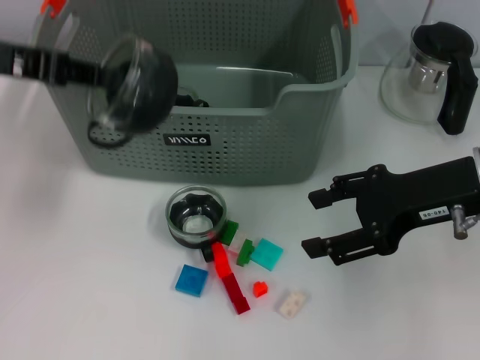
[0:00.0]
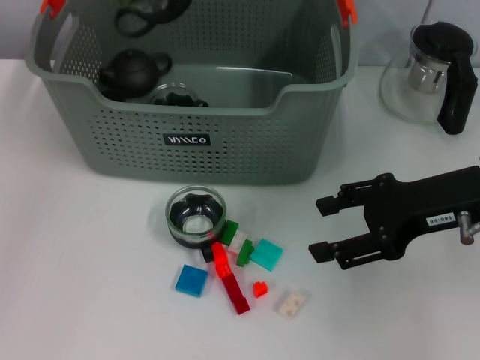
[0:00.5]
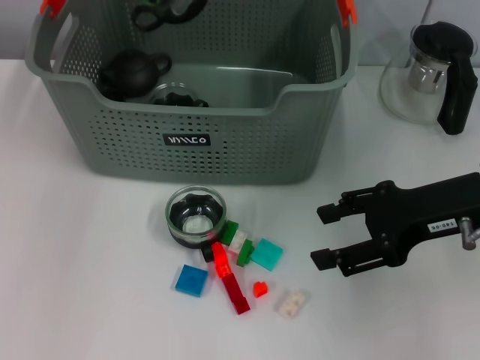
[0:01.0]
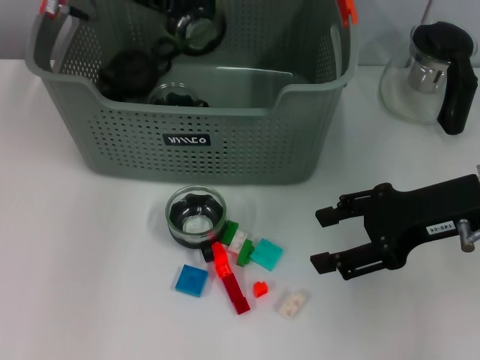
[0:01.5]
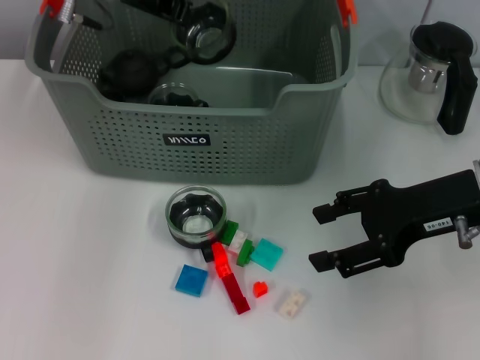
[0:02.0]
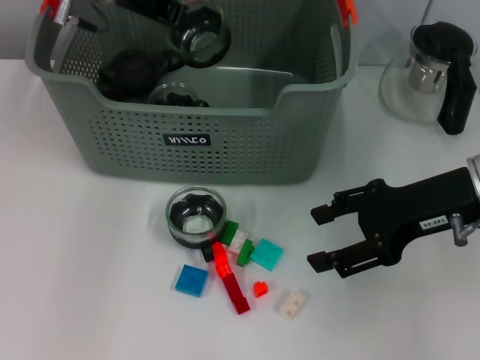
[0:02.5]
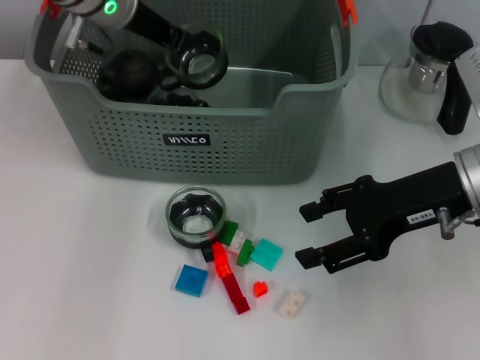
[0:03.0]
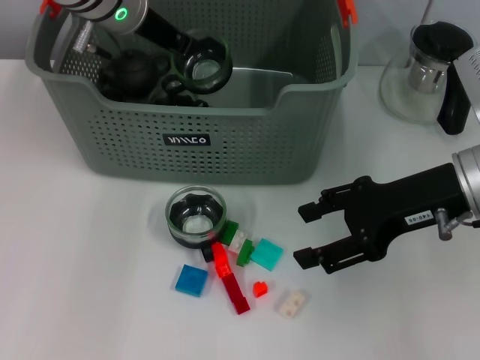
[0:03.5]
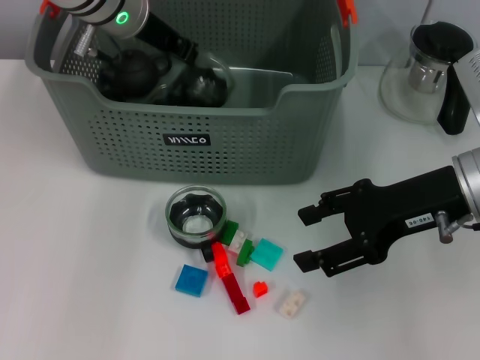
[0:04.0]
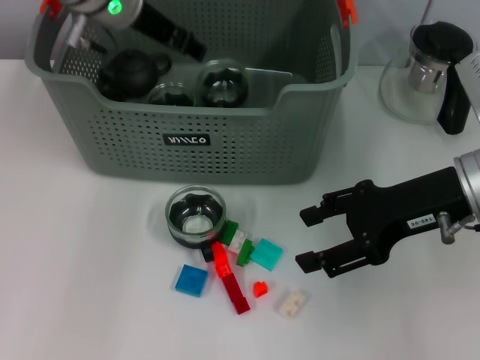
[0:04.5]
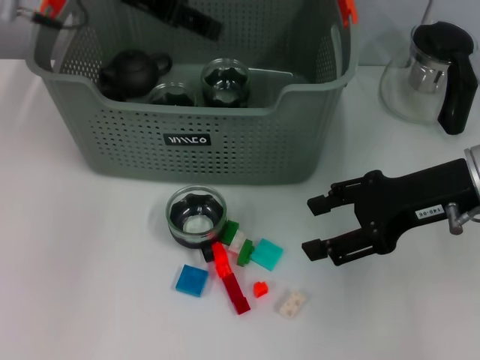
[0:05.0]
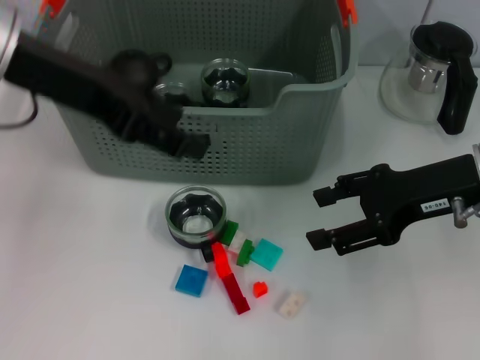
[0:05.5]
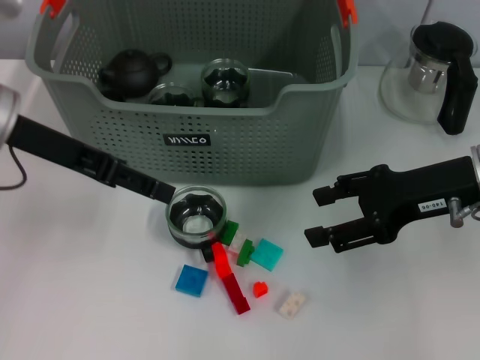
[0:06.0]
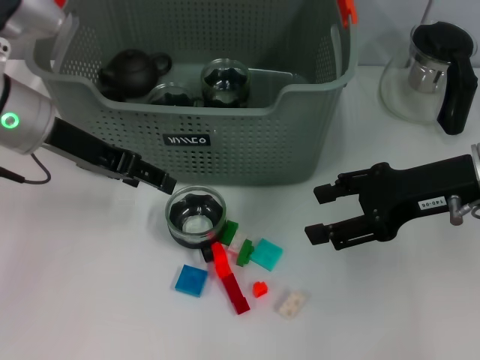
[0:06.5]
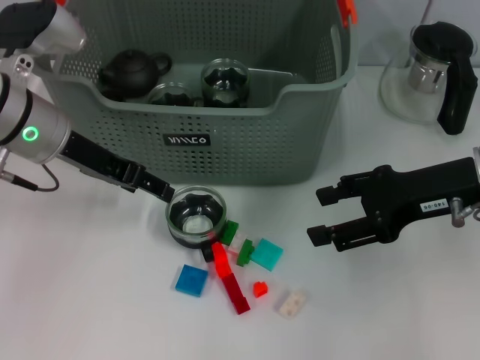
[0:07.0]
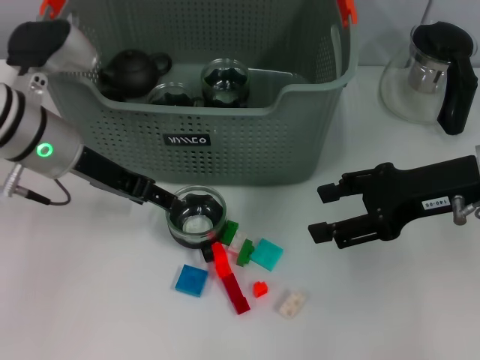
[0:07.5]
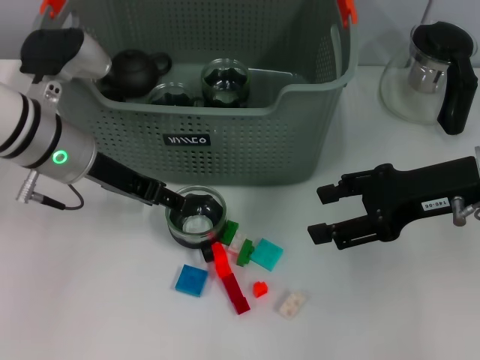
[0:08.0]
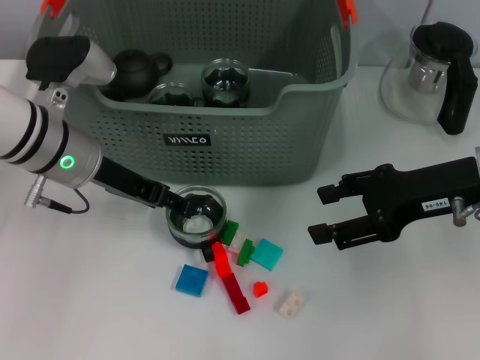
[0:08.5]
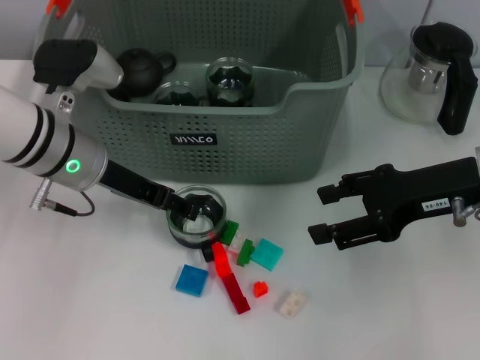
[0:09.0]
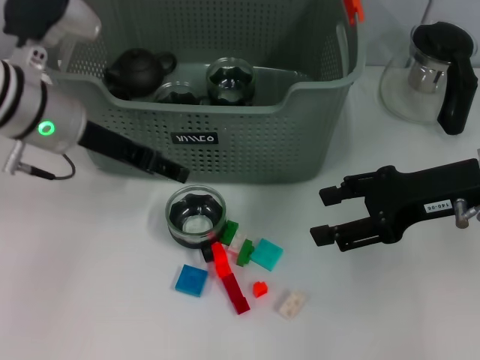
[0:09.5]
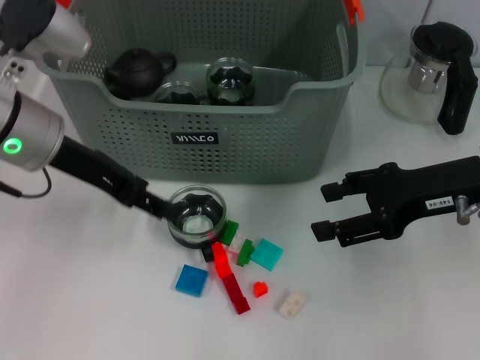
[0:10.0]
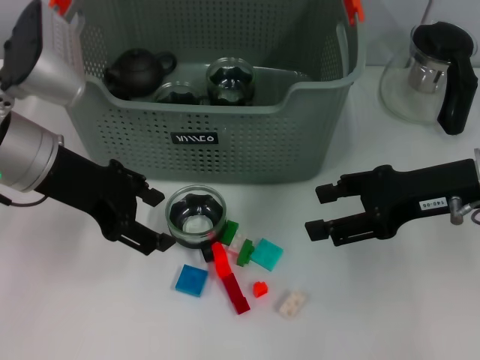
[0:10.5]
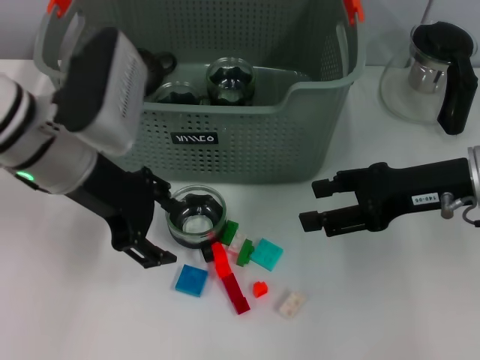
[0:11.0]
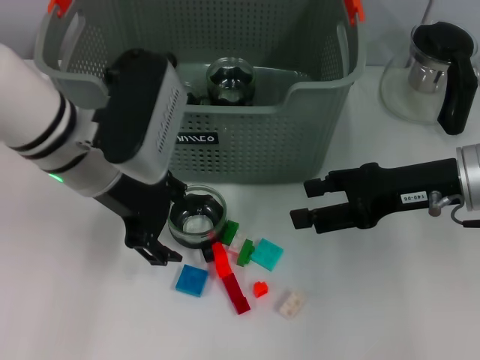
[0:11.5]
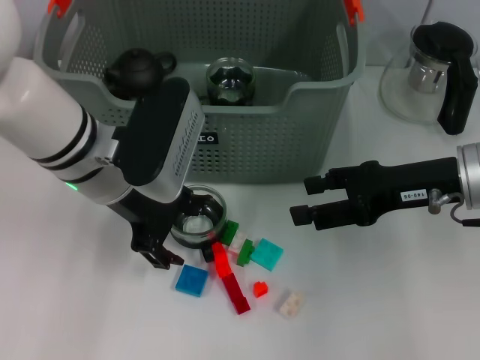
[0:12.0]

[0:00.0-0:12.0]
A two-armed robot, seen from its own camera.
Task of the whole recording: pick up the teacup on the table and place it into the storage bin, pick up the block on the table and place it into the storage bin.
Step, 0:00.0 to 0:04.0: Place the cup in the storage box with left gripper.
0:00.0 to 0:02.0: The left gripper goes approximately 20 cm forward and to the right.
0:02.0 to 0:04.0: There are only small adjustments of the grippers.
0:04.0 to 0:06.0: The left gripper is displaced backward and to the left by roughly 15 cm, and opens its fingers.
0:06.0 to 0:08.0: The left gripper heads downward, covering some 10 cm.
0:08.0 to 0:10.0: The left gripper moves approximately 5 cm.
0:10.0 to 0:12.0: The left gripper moves to the right, some 5 cm.

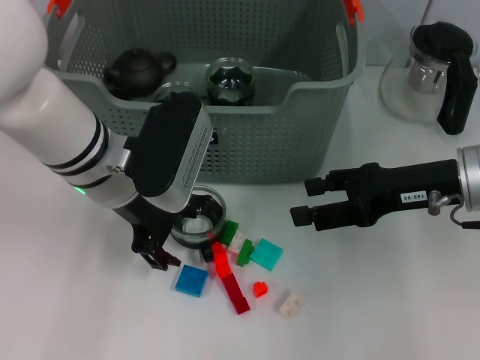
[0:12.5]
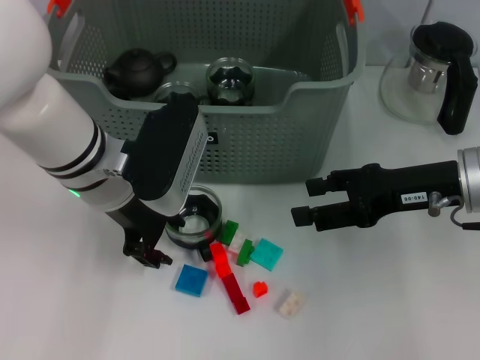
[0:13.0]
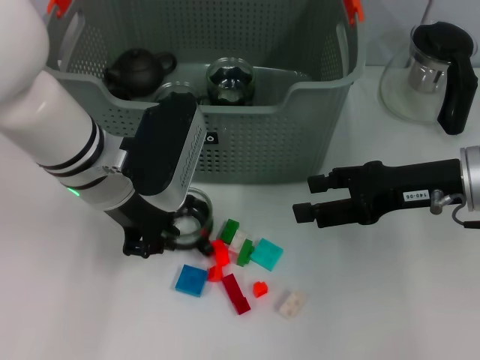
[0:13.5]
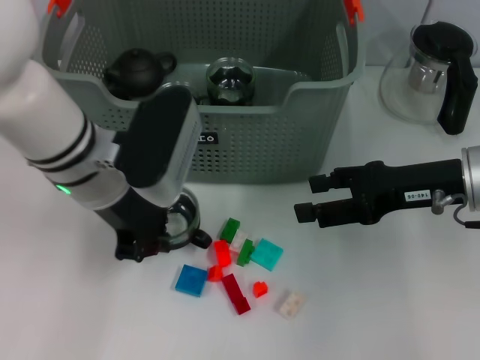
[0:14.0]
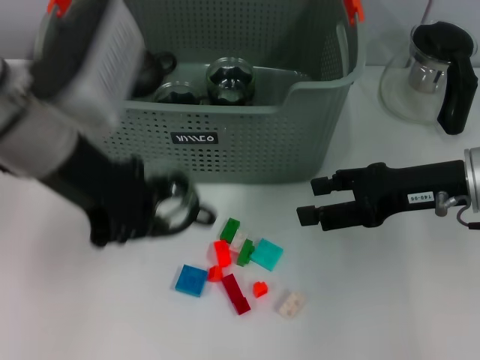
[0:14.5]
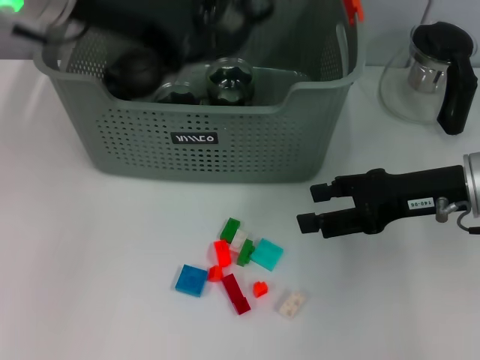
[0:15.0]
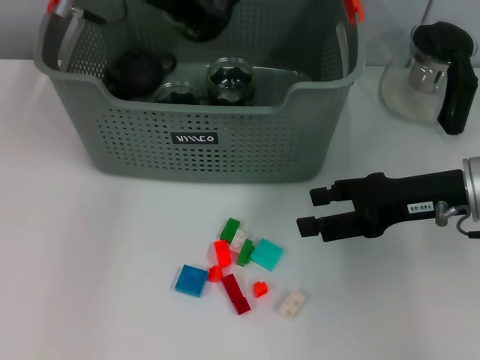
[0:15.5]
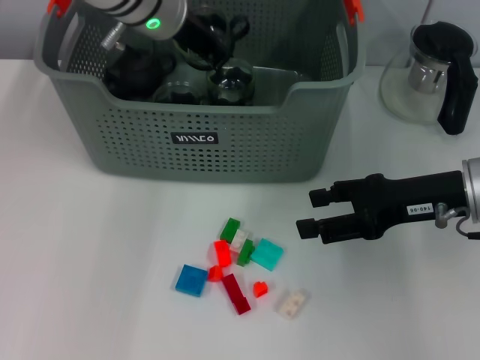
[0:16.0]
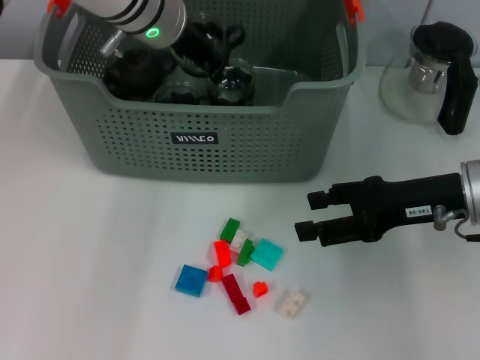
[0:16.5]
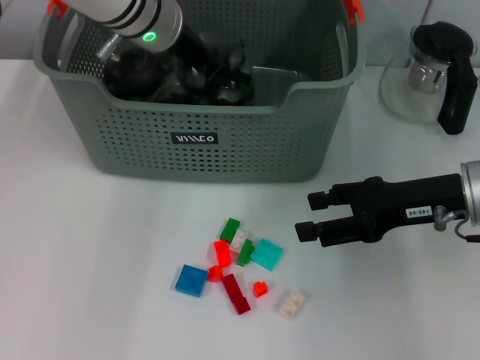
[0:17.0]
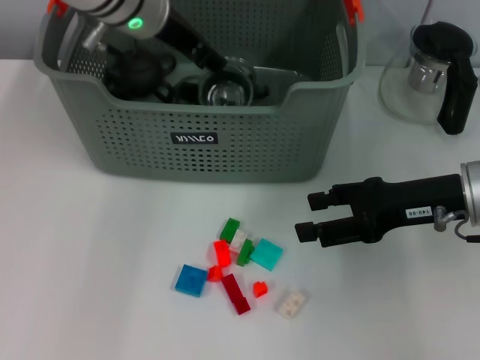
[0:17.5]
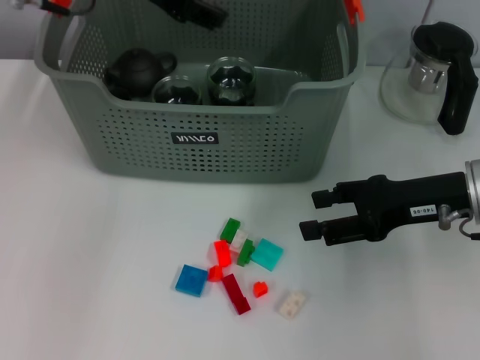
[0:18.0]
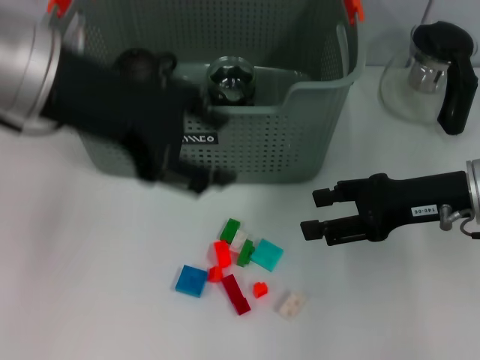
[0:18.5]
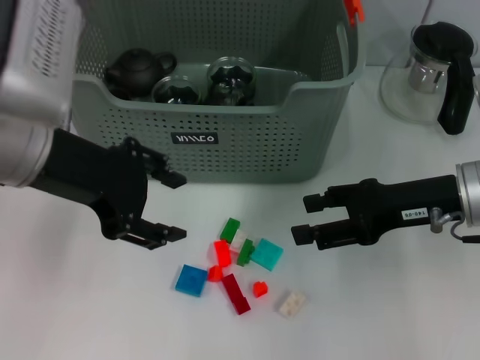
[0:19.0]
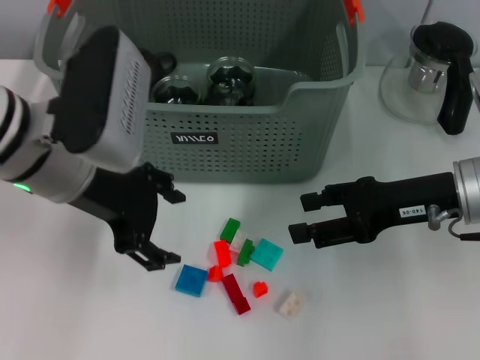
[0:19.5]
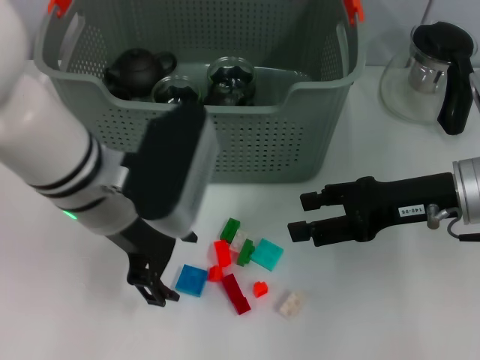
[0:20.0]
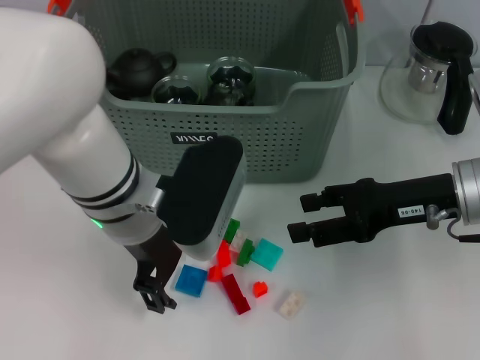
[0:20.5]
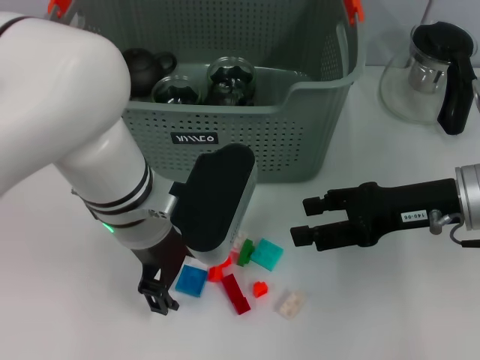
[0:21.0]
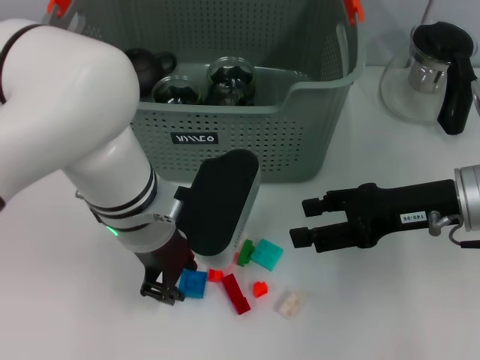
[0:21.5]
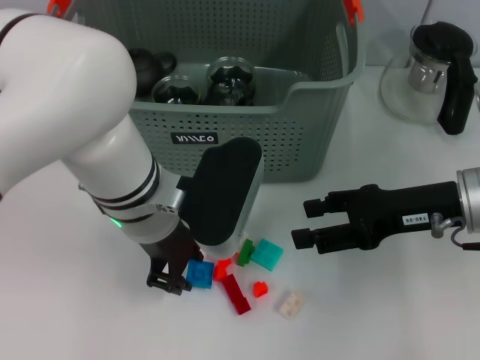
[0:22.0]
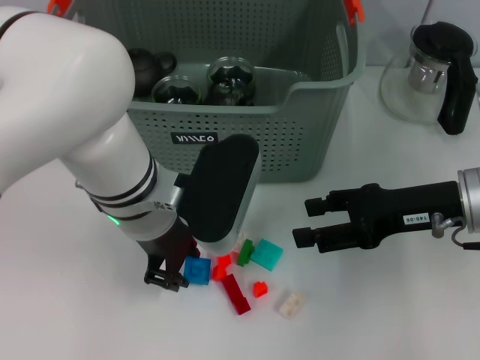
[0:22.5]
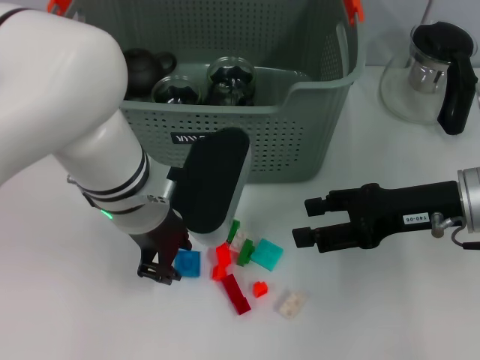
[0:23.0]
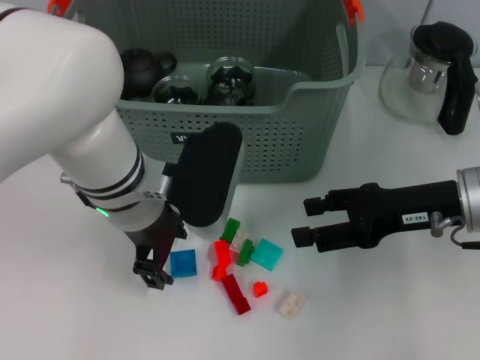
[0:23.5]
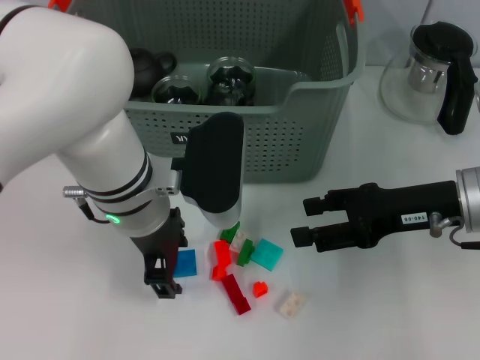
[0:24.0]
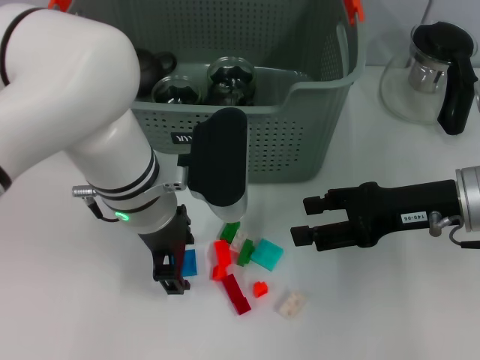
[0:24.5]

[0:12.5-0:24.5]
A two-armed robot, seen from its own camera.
Task of the whole recording: pick up the teacup on the table and place it into the storage bin, pick up the block on the table and place it into the storage bin.
Step, 0:14.0 to 0:17.5: Place the cup in the storage box with left gripper.
0:12.5 to 0:14.5: The left gripper heads upward, covering about 10 cm, and closes.
0:14.5 to 0:16.5: The left gripper shifts roughly 15 cm forward and to the right.
0:16.5 to 0:18.5: The left gripper travels backward, upward and to the left by about 20 cm, and opens.
0:18.5 to 0:20.5: The left gripper moves downward and to the right, some 15 cm.
0:20.5 to 0:22.5: The left gripper closes.
0:22.5 to 0:24.5: There are only small adjustments of the grippers.

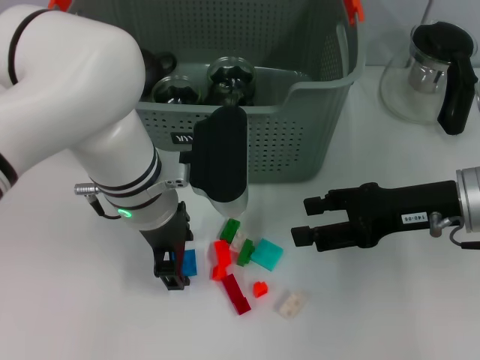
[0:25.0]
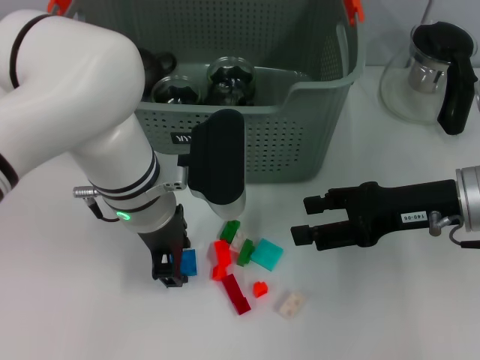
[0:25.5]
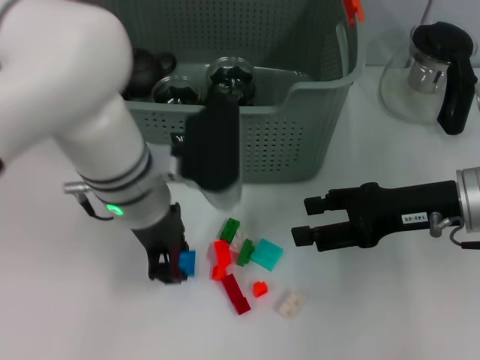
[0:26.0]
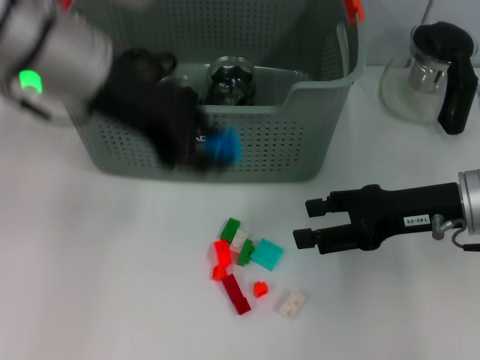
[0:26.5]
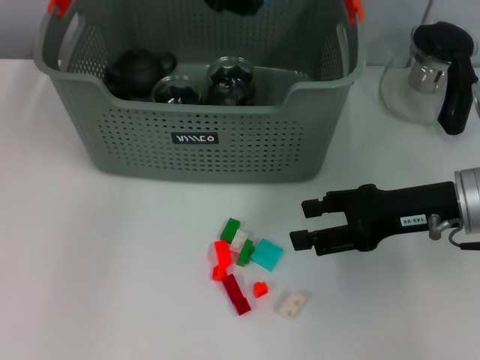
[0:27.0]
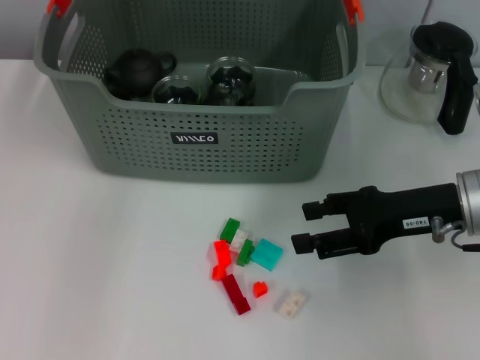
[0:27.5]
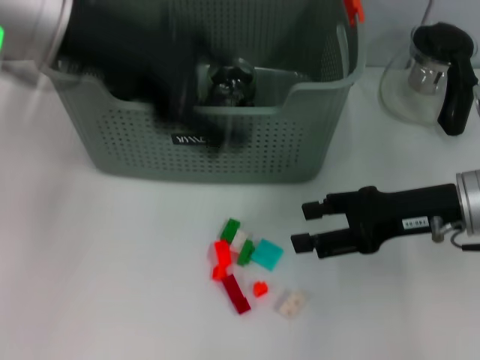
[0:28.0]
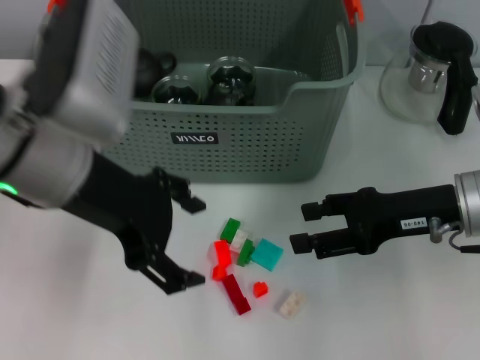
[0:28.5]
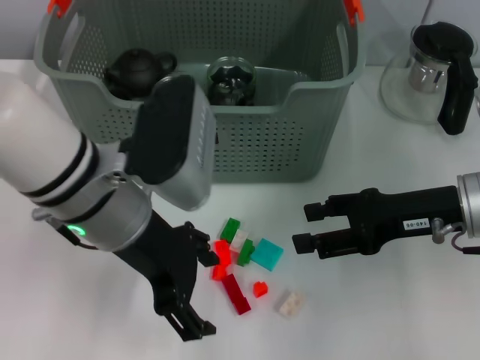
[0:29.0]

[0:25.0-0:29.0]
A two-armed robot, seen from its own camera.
Task of the whole recording: pick up the teacup on the table and place it into the storage bin, pick up the block on the table and place it into the storage bin.
Step, 0:26.0 to 0:27.0: Place the dark blue block in the storage box with left gripper.
0:25.0 to 0:27.0: The left gripper heads upward and forward, covering approximately 20 cm.
0:27.0 to 0:29.0: The left gripper is displaced backward and downward by some 20 cm, and opens its fingers.
